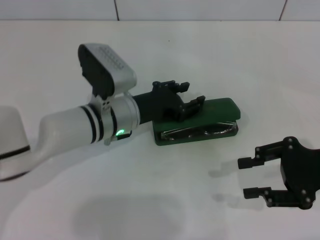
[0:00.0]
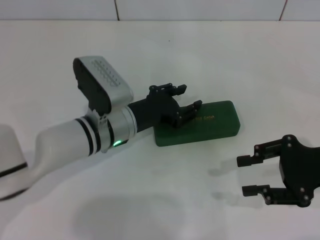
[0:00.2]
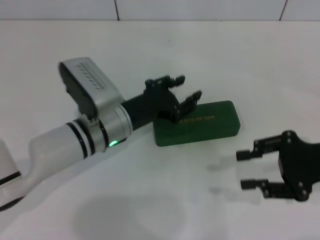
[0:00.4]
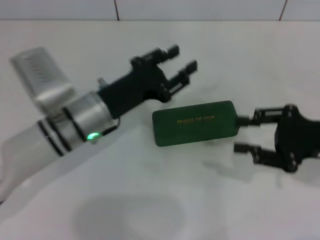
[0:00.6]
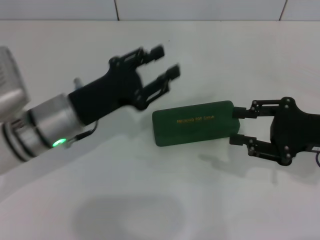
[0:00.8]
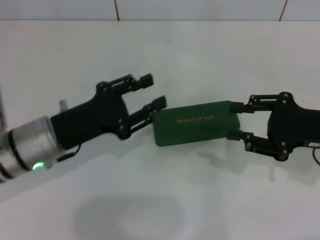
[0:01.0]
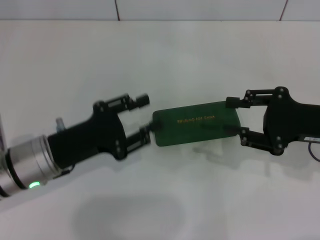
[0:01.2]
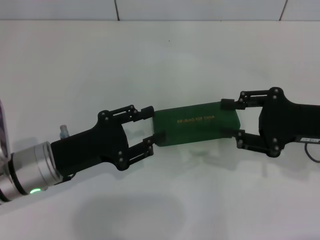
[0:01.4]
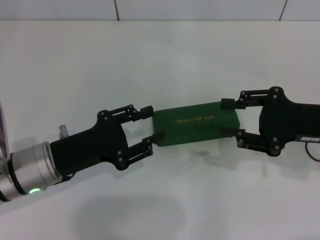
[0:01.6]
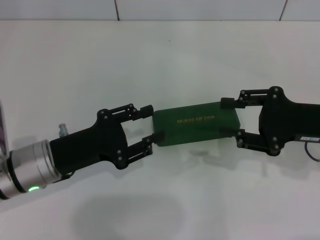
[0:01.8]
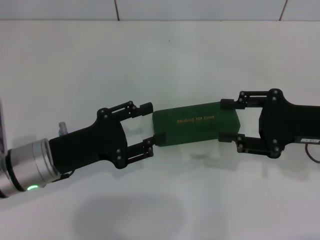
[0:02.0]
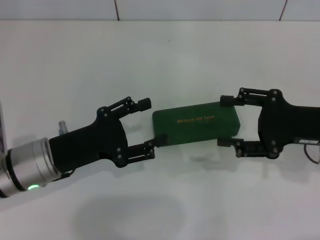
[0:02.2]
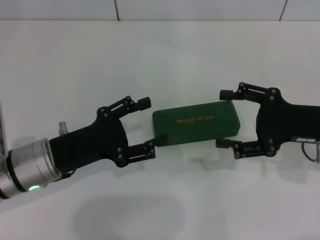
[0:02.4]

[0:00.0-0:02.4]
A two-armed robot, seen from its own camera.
0:00.0 to 0:01.2: The left gripper goes about 15 cm to the left and backward.
0:01.2 to 0:02.4: Both grippers stay about where they are.
